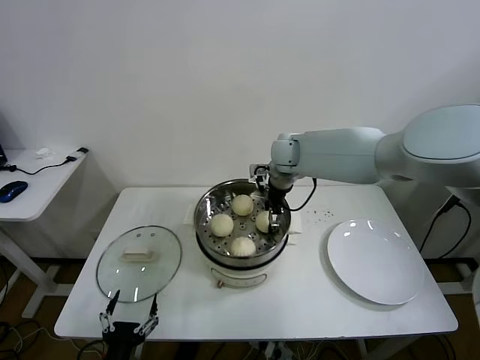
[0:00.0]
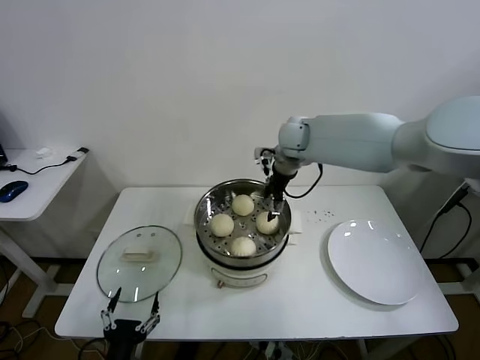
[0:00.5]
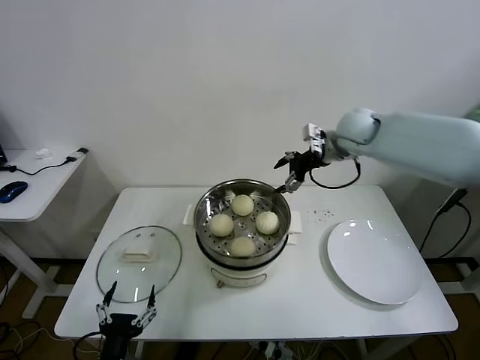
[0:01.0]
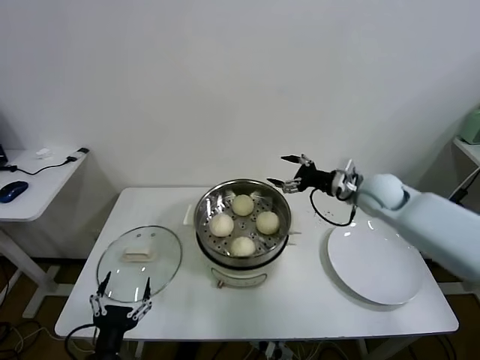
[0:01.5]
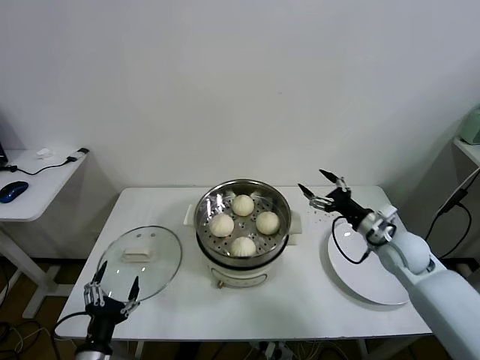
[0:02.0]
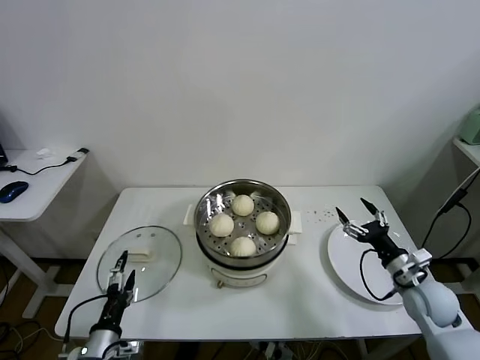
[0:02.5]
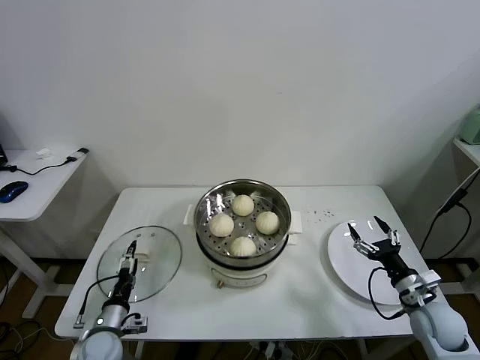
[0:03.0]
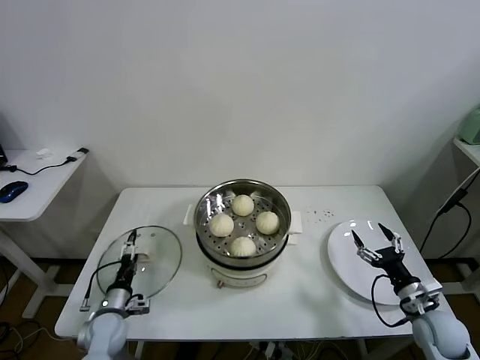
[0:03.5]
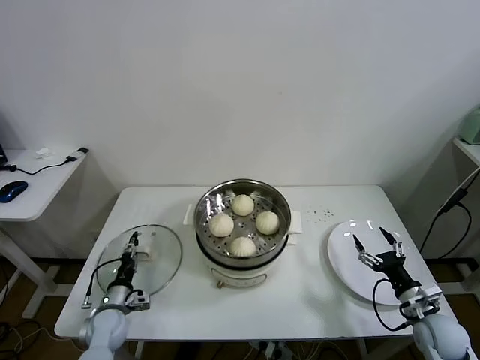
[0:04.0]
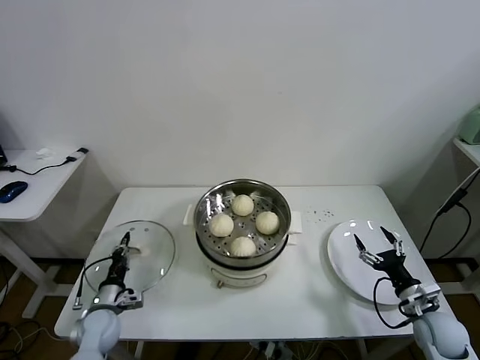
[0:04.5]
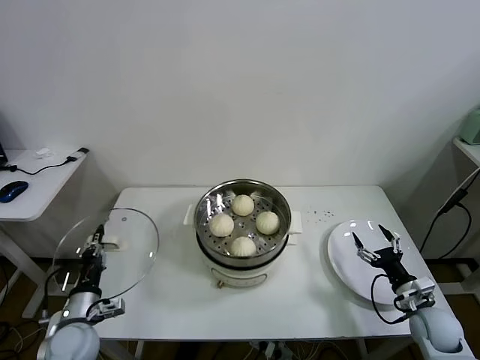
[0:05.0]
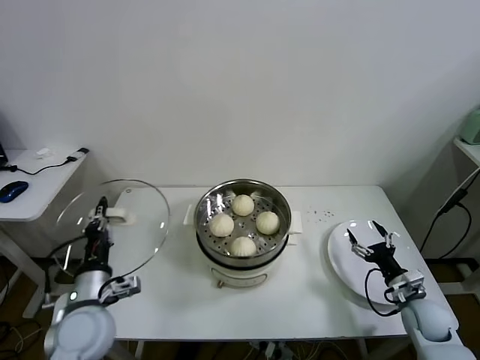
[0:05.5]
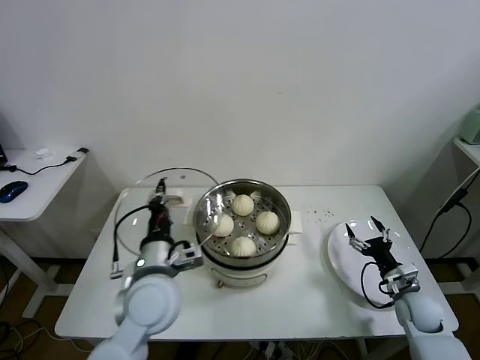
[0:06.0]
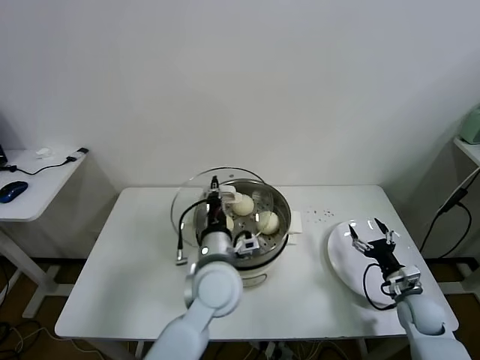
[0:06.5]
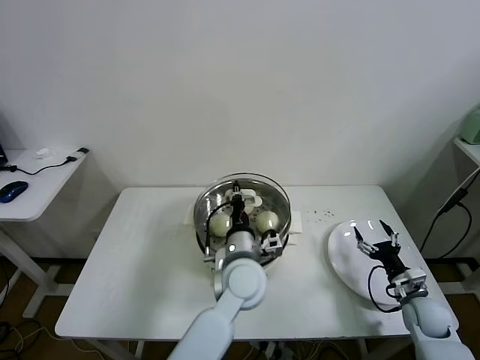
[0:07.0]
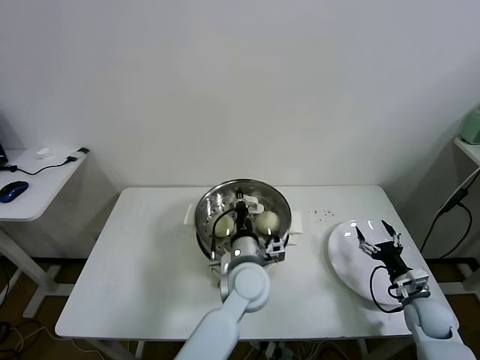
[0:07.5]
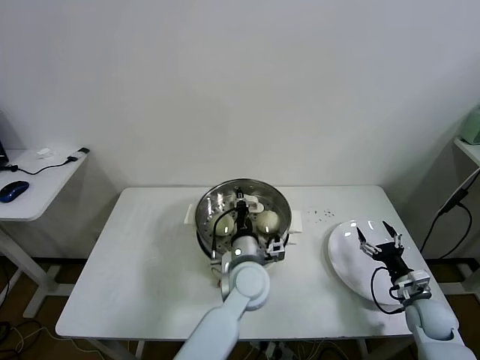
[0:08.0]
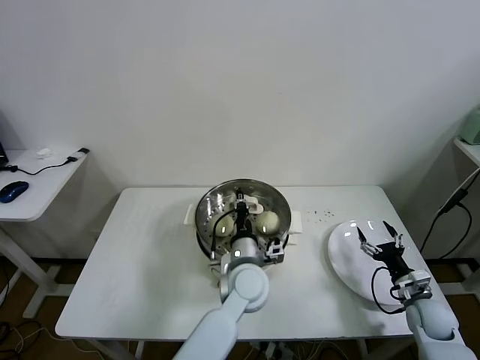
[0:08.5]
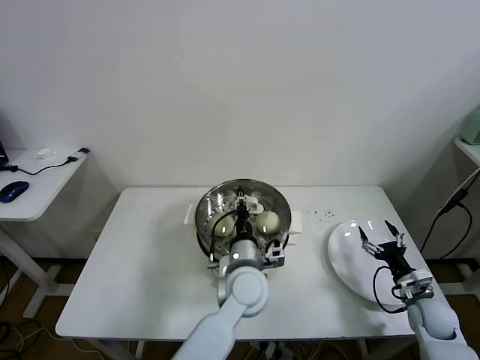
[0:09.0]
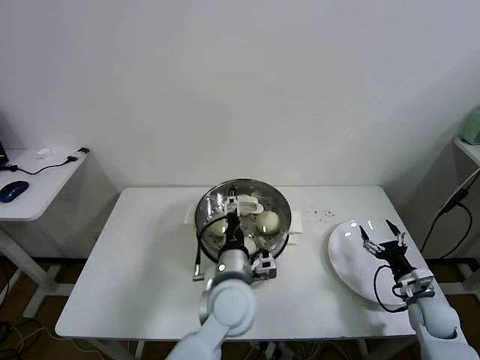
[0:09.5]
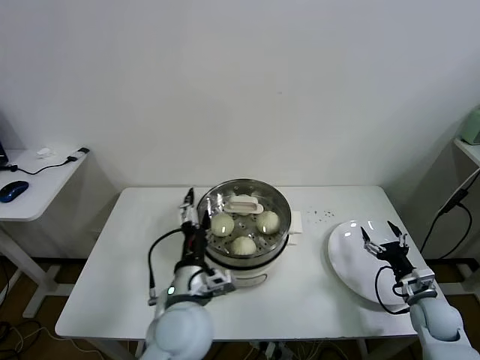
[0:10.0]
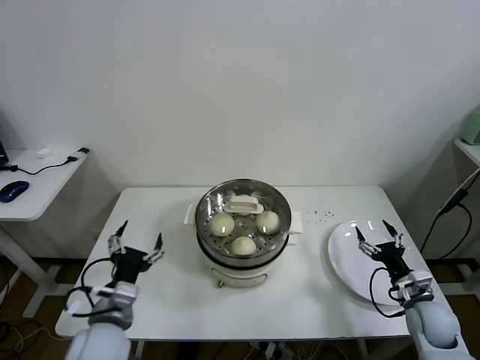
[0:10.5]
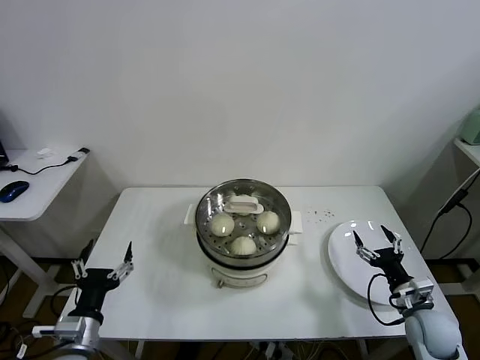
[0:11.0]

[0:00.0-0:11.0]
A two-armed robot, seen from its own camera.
Task of the whole recording: take steamed baozi put them in steamer.
Step, 0:00.5 to 0:04.0: Grasp the pot lid with left gripper.
Step, 0:04.5 to 0:09.5: Place the pot lid on the steamer with left gripper.
0:00.0 to 0:02.0: The left gripper moves some 5 cm; the right gripper goes approximately 35 cm to the right, backward and downward.
0:02.0 to 0:03.5: The left gripper travels forward and downward by some 20 cm. The right gripper is displaced backward, downward and to the right by some 20 cm.
0:03.5 to 0:05.5: The left gripper goes roughly 20 cm upward, and closes its fingers.
0:05.5 to 0:07.5: The left gripper shifts roughly 30 cm to the right.
0:07.5 to 0:09.0: The two grippers keep their place.
0:09.0 to 0:11.0: The left gripper moves to the left and backward, some 35 cm, and opens its fingers, while the right gripper ends up approximately 5 cm from where it was.
